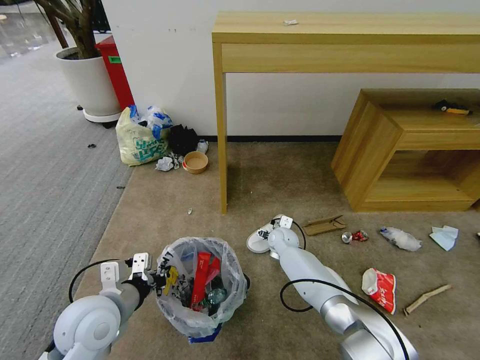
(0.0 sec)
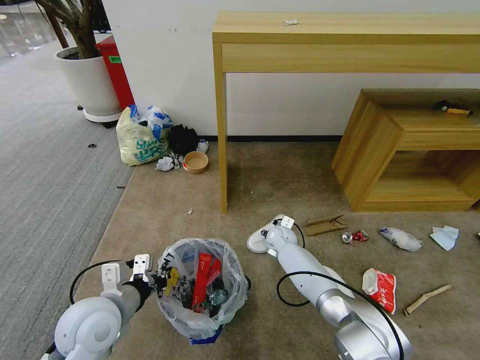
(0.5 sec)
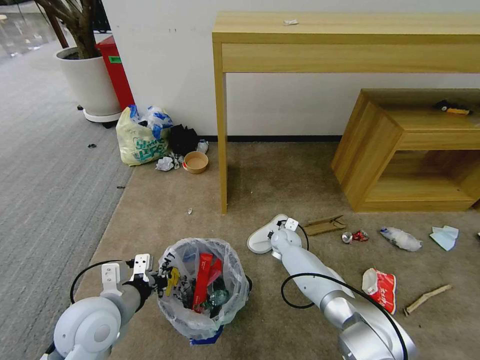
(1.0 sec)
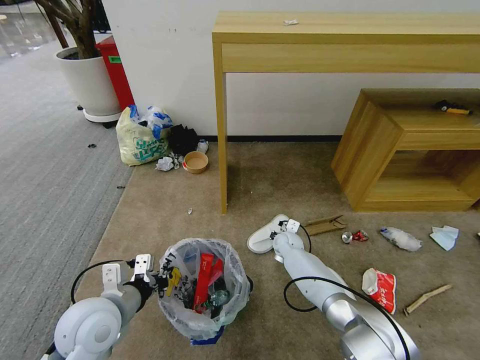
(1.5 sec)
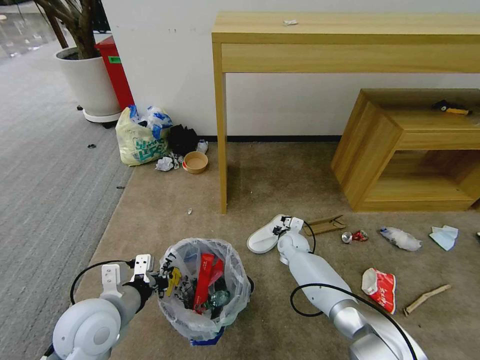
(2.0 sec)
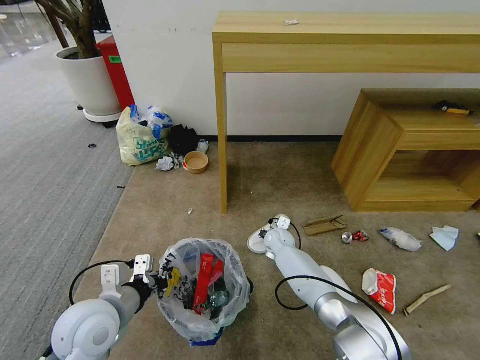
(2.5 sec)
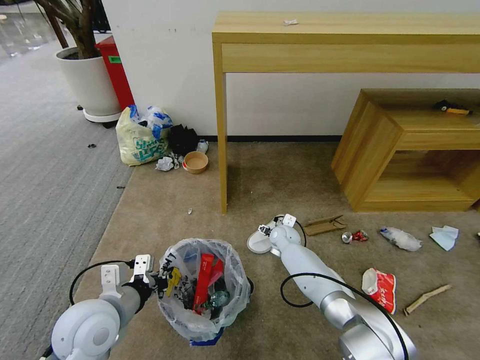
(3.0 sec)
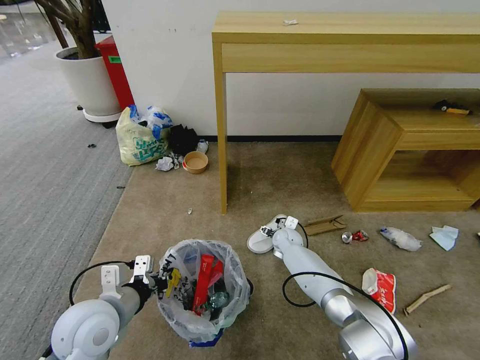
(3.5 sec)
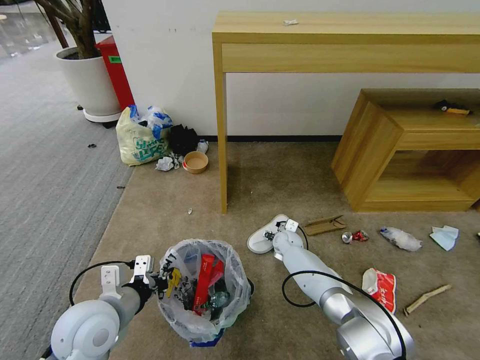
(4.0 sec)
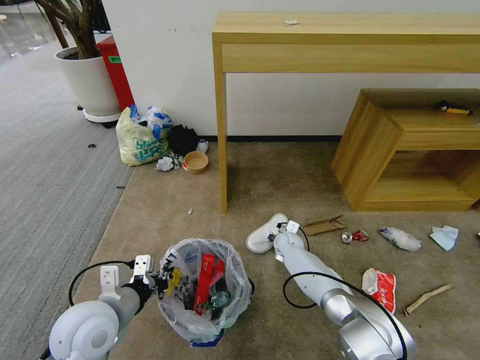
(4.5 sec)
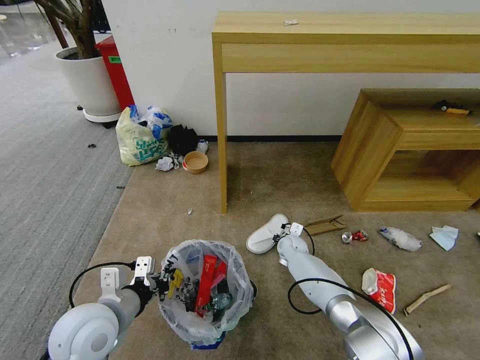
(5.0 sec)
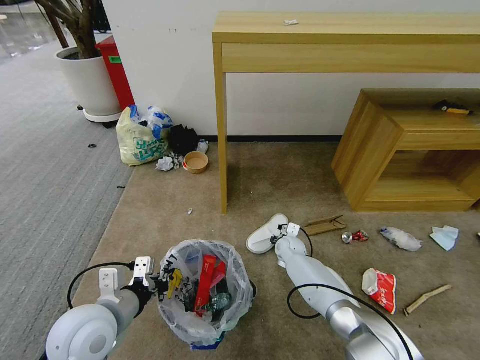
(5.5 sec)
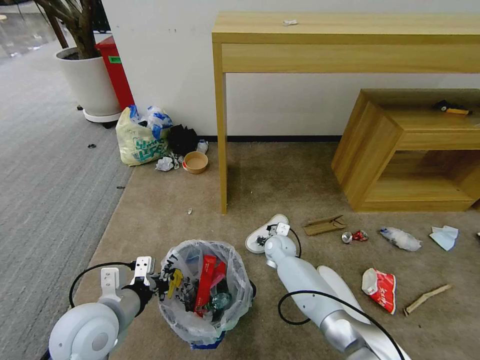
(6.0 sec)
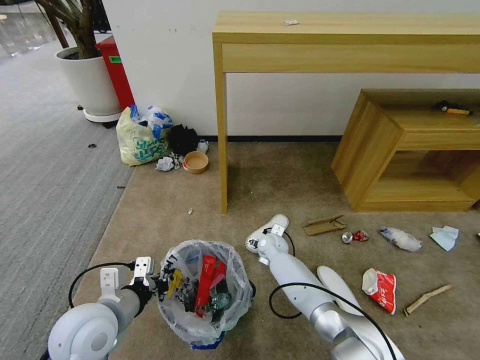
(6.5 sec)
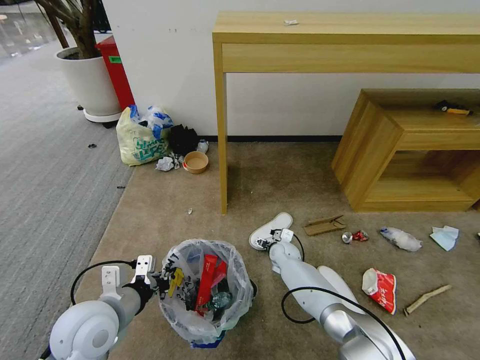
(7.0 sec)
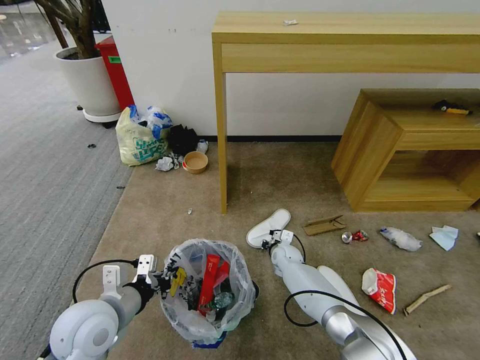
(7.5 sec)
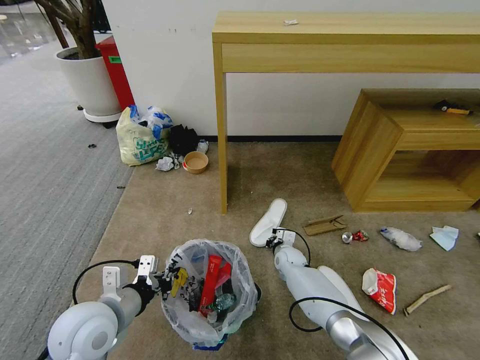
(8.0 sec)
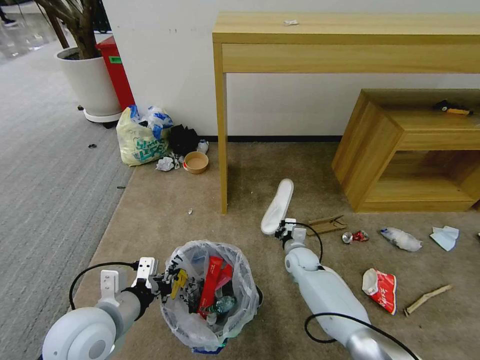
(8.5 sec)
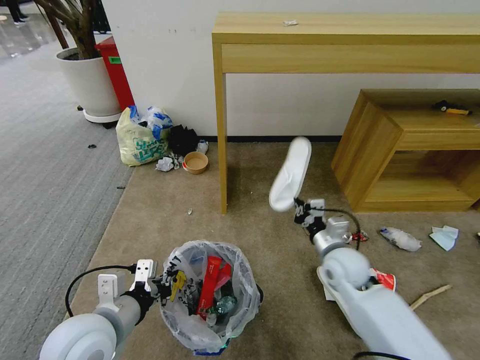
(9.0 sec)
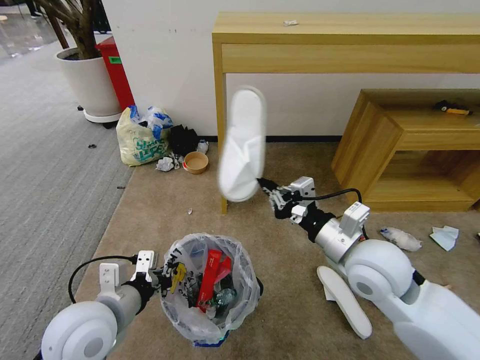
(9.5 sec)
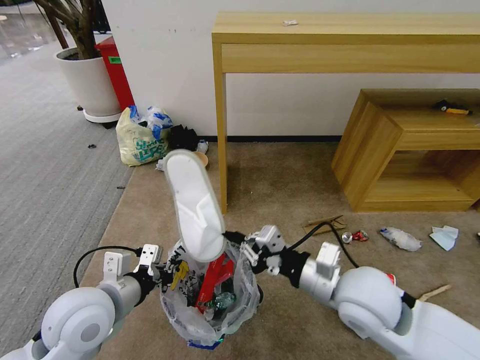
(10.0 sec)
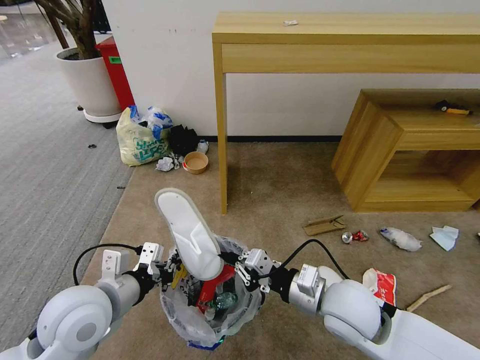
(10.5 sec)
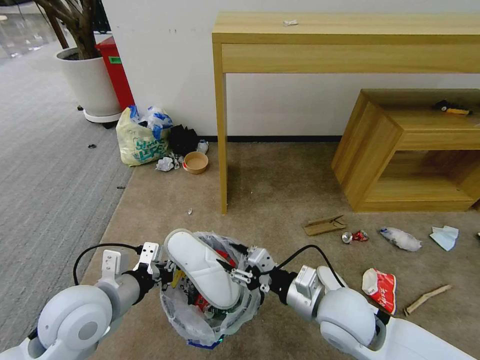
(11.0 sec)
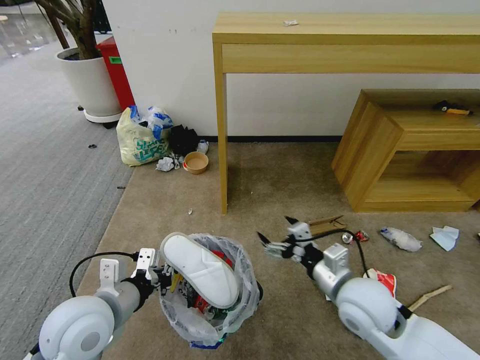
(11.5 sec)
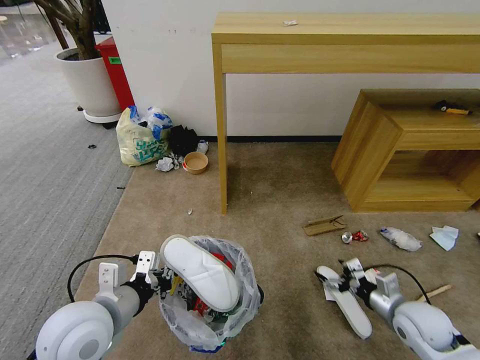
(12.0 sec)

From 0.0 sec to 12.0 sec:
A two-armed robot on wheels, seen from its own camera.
Task of the whole recording: Pick up the trash bin and place the garbage on the floor into it.
From 0.0 sec to 2.0 sec: The right gripper closes its fingers.
From 2.0 sec to 4.0 sec: The right gripper opens.
From 4.0 sec to 6.0 sec: The right gripper ends up approximately 5 cm from where it was, and closes, then reopens.
From 6.0 sec to 8.0 sec: The right gripper goes about 5 cm downward, and closes up.
From 8.0 sec to 10.0 sec: The right gripper shifts about 40 cm upward and backward.
From 10.0 sec to 12.0 sec: The right gripper travels to the right and downward by about 25 cm, and opens.

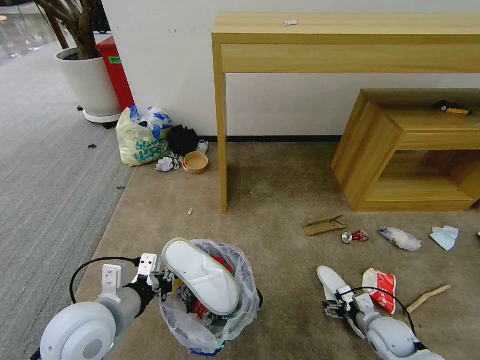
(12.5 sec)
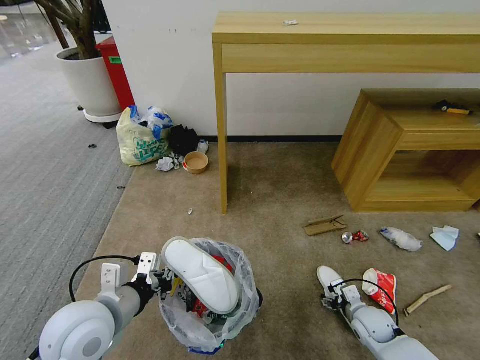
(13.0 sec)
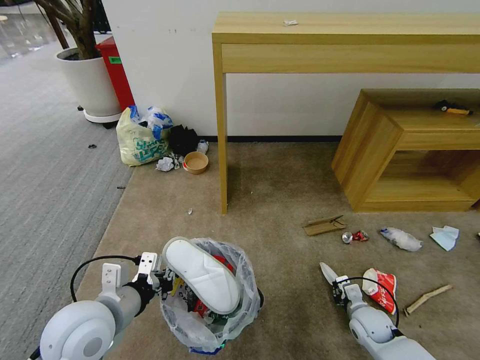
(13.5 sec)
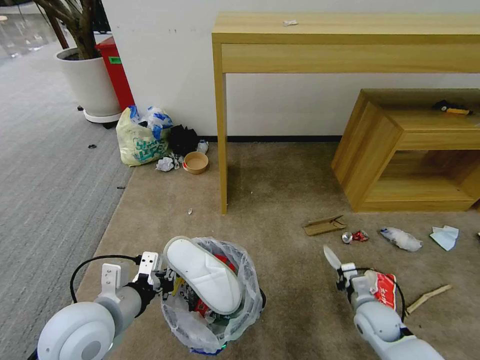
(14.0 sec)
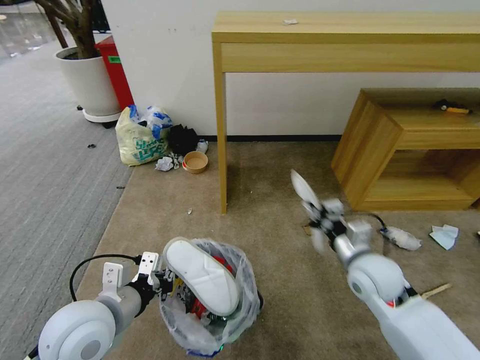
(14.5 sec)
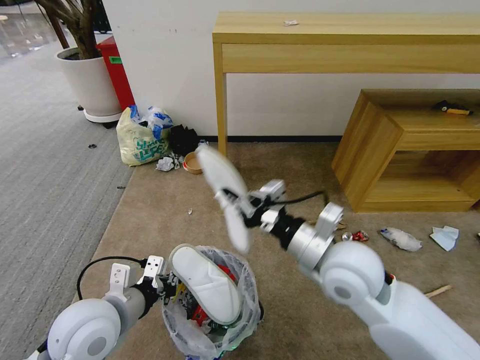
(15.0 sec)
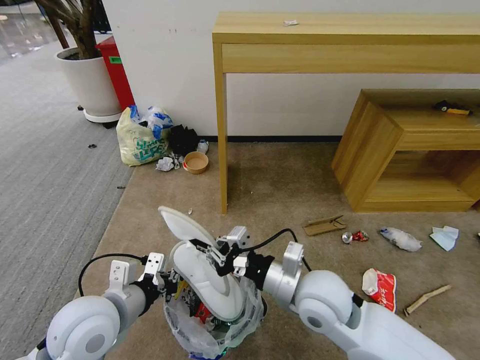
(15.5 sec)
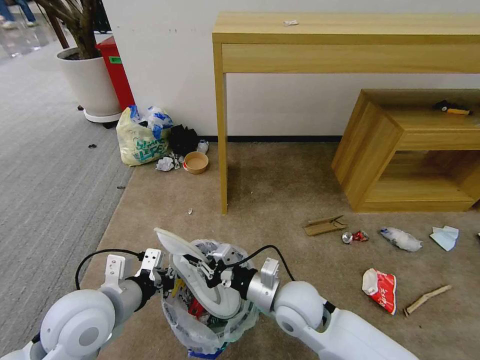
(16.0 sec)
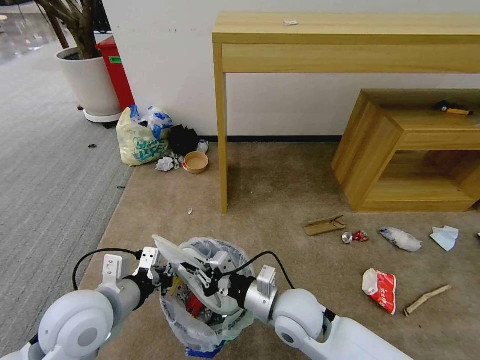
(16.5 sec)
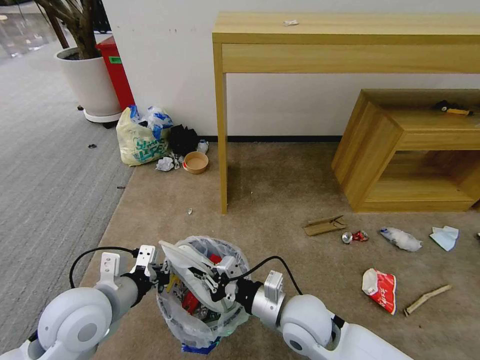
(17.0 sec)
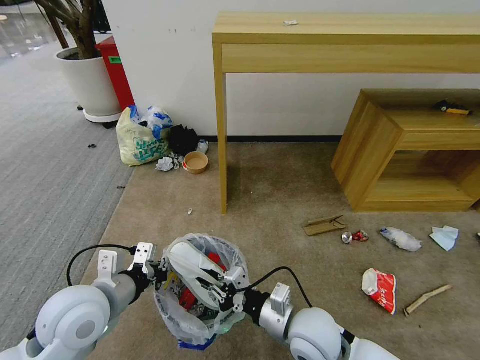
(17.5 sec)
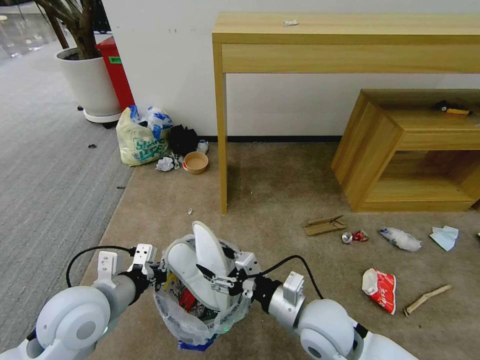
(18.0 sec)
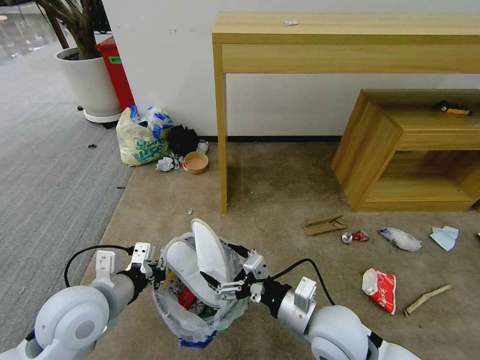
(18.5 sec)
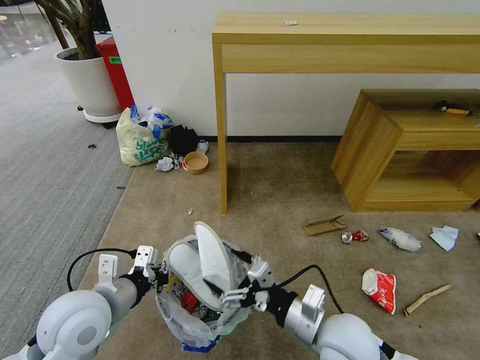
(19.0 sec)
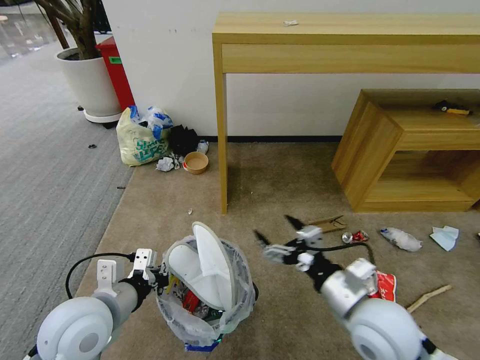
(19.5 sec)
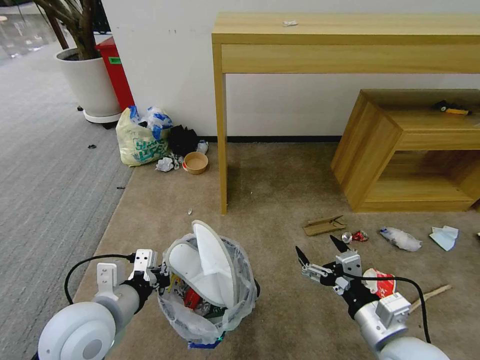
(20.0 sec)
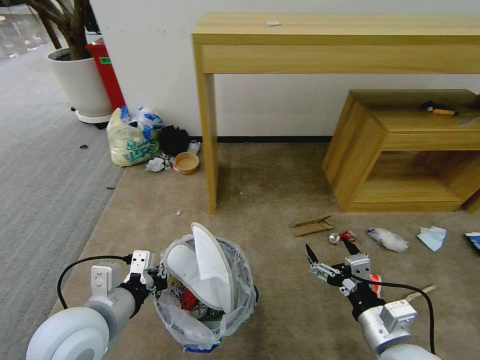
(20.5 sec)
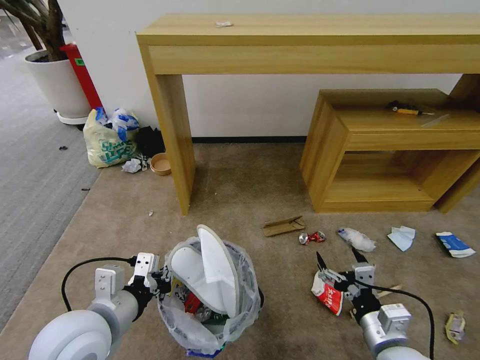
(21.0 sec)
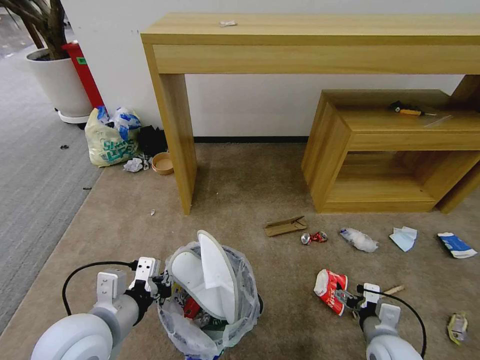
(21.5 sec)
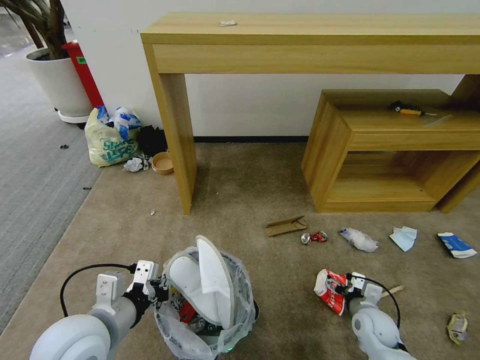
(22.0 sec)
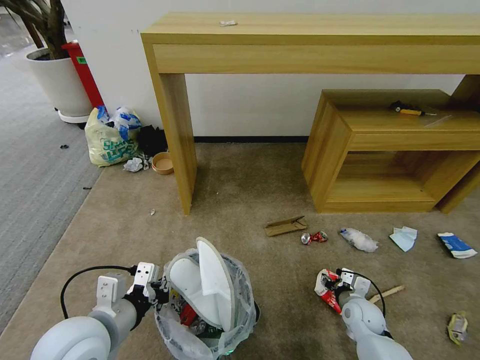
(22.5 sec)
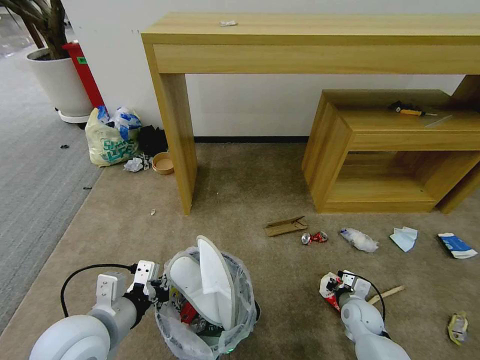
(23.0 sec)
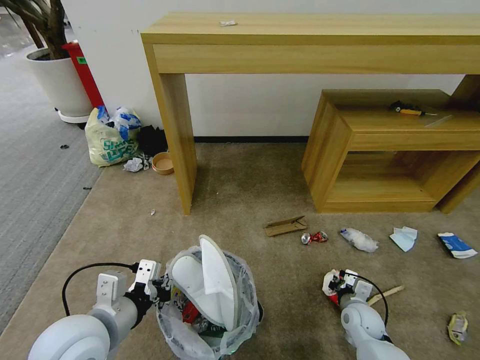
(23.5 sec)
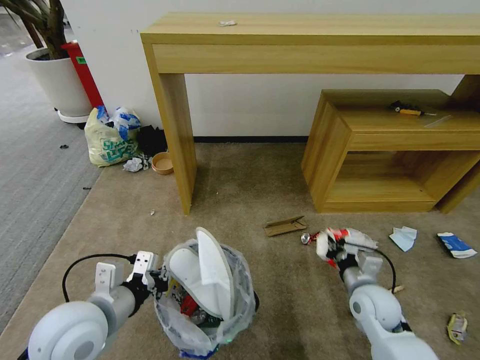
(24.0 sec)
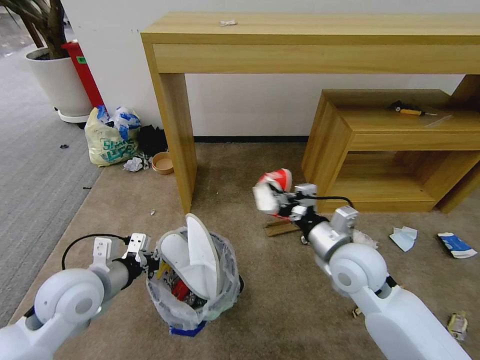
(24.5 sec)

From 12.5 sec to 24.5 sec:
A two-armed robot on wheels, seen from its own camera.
Task of the whole recording: Pick up the trash bin and place the garbage on the floor into it.
From 12.5 sec to 14.5 sec: The right gripper goes approximately 20 cm upward and to the left, and closes up.
From 14.5 sec to 16.5 sec: The right gripper is displaced to the left by about 20 cm.
From 16.5 sec to 18.5 sec: The right gripper heads to the right, covering roughly 5 cm, and opens up.
From 18.5 sec to 20.5 sec: The right gripper moves to the right and backward, some 10 cm.
From 20.5 sec to 22.5 sec: The right gripper travels downward and forward by some 25 cm, and closes.
From 22.5 sec to 24.5 sec: The right gripper is displaced upward and to the left by about 30 cm, and closes up. The left gripper travels forward by some 10 cm.

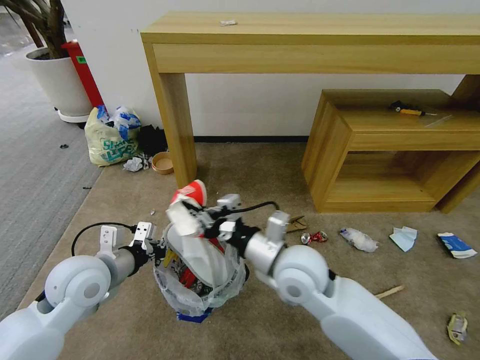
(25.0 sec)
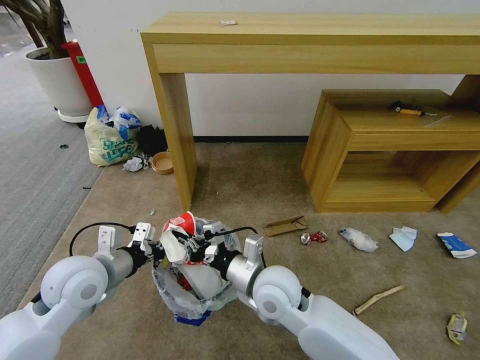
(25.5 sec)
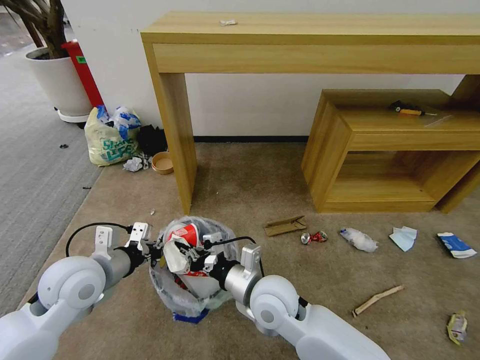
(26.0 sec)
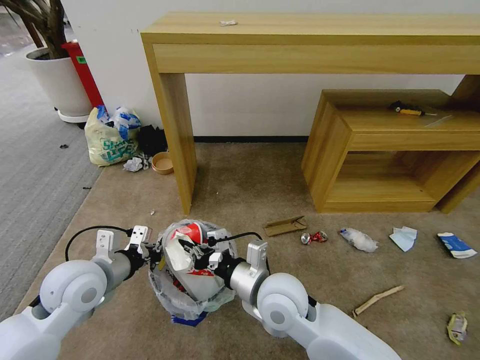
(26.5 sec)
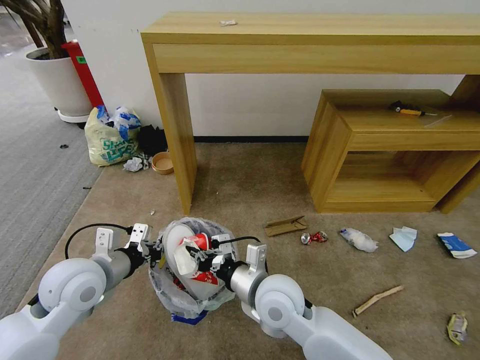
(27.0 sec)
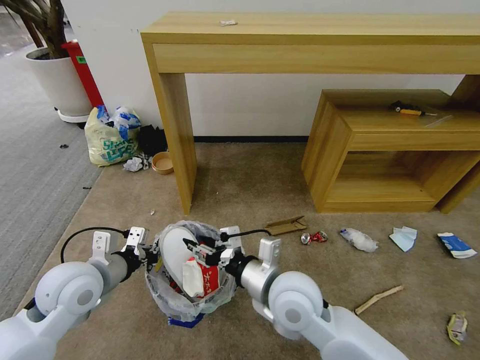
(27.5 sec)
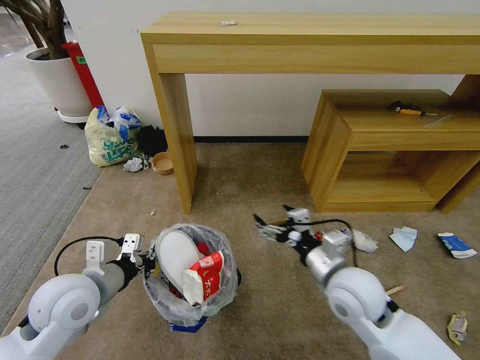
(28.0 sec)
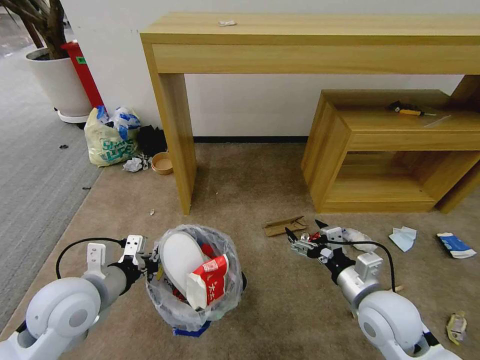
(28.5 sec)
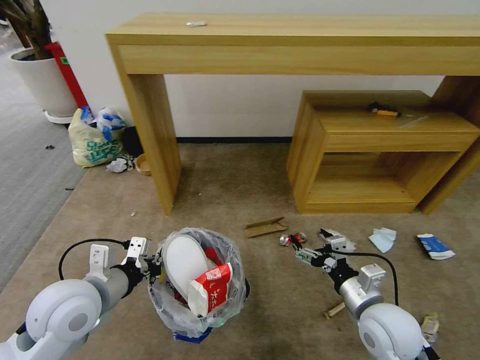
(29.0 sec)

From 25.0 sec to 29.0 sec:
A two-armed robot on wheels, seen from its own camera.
Task of the whole recording: Pick up the trash bin and place the garbage on the floor into it.
From 25.0 sec to 27.0 sec: The right gripper heads downward, covering roughly 5 cm.
From 27.0 sec to 29.0 sec: The right gripper shifts about 20 cm to the right, and opens its fingers.
